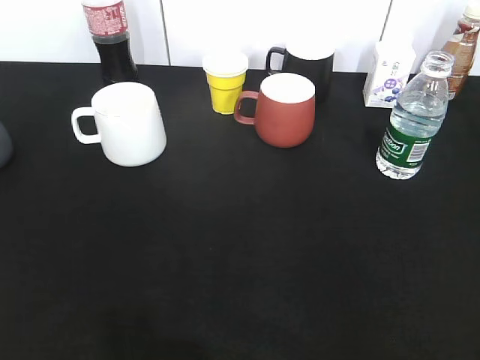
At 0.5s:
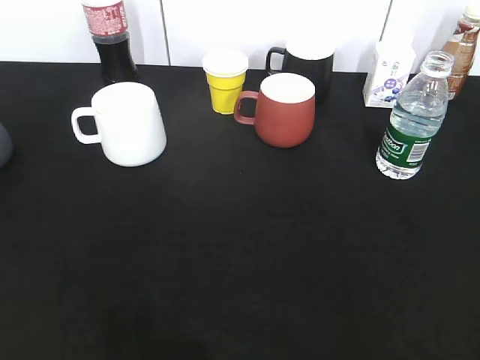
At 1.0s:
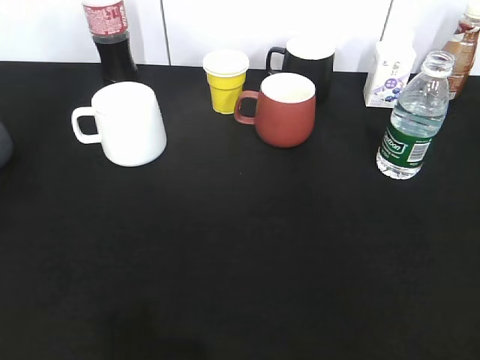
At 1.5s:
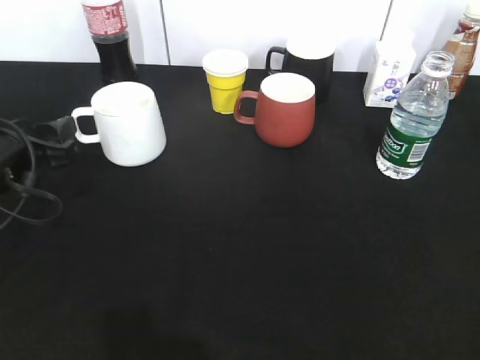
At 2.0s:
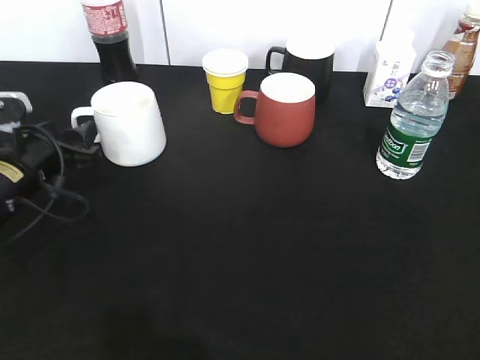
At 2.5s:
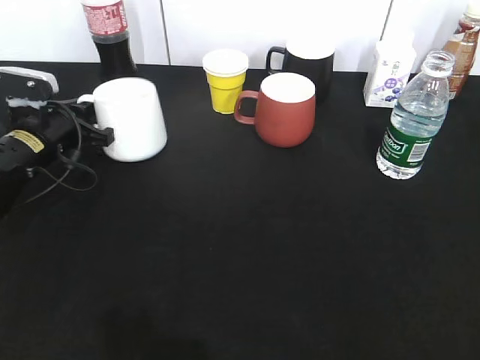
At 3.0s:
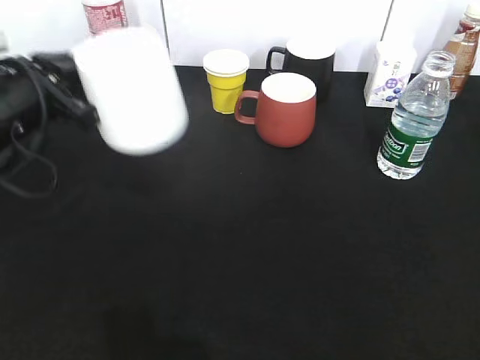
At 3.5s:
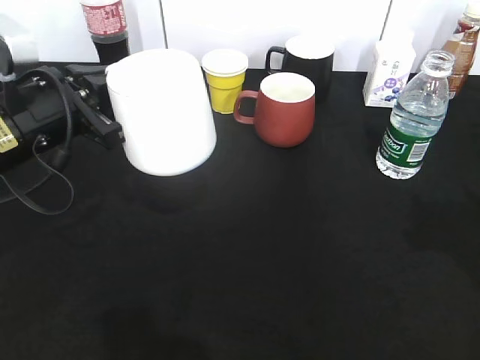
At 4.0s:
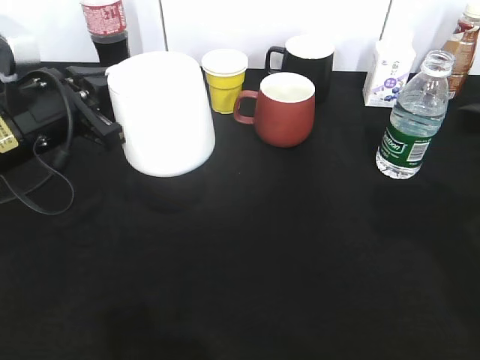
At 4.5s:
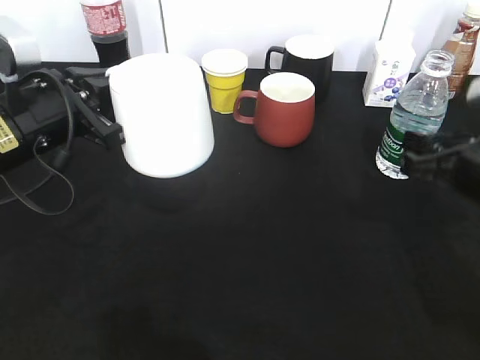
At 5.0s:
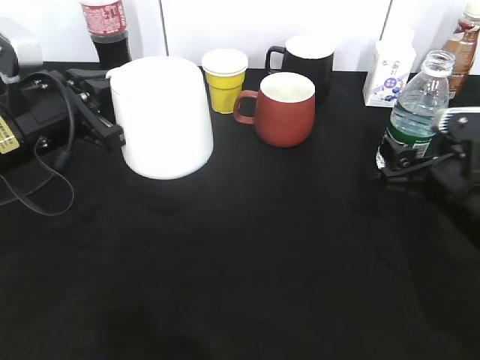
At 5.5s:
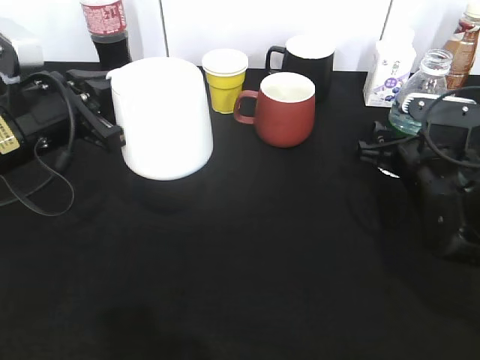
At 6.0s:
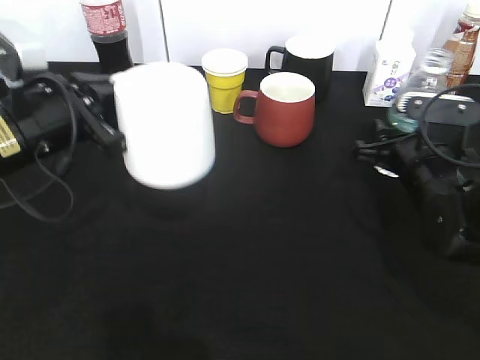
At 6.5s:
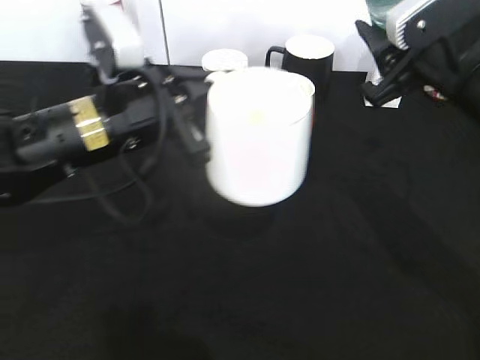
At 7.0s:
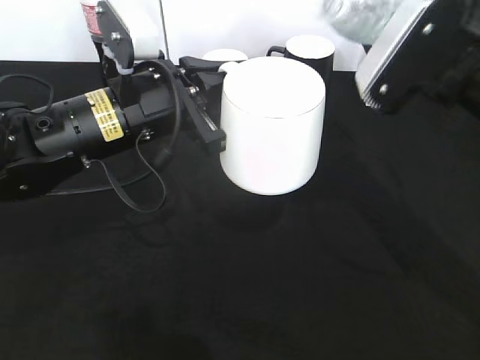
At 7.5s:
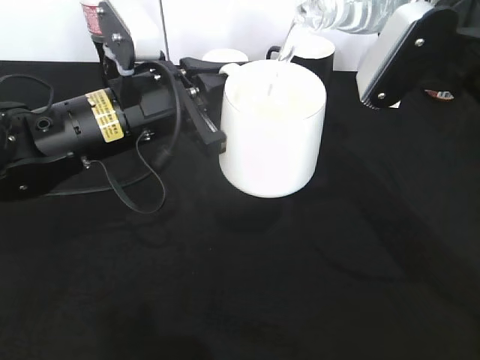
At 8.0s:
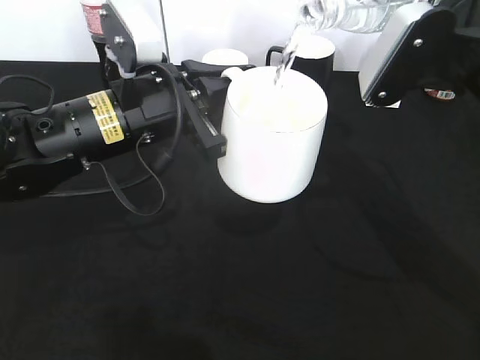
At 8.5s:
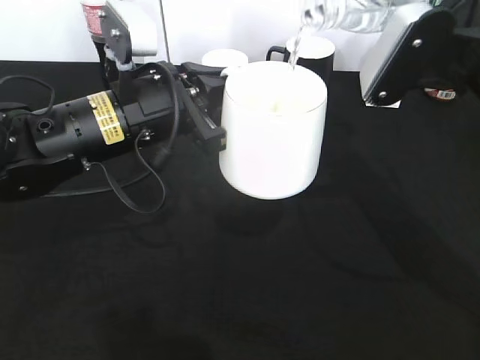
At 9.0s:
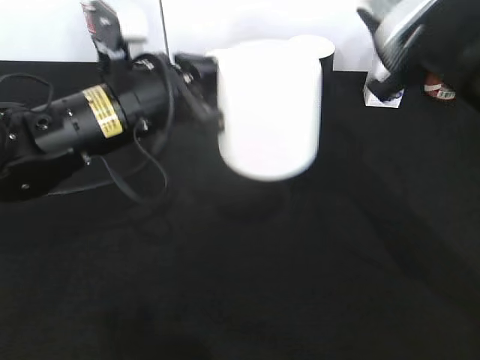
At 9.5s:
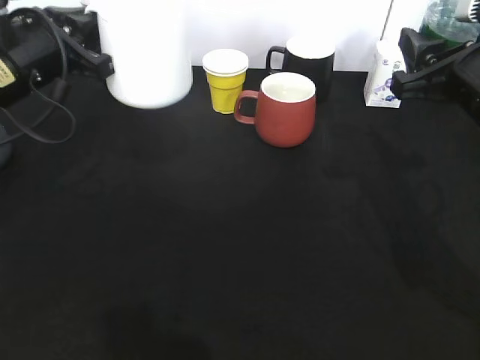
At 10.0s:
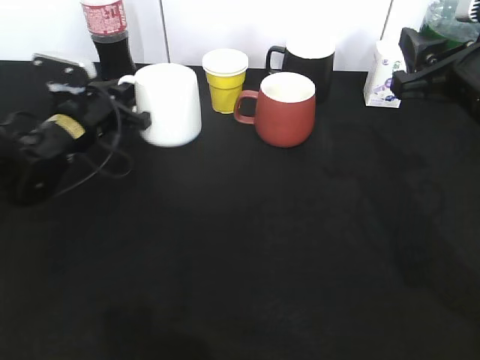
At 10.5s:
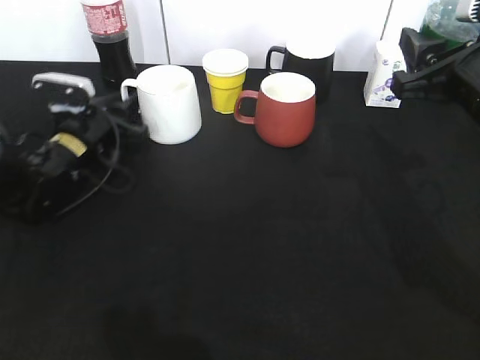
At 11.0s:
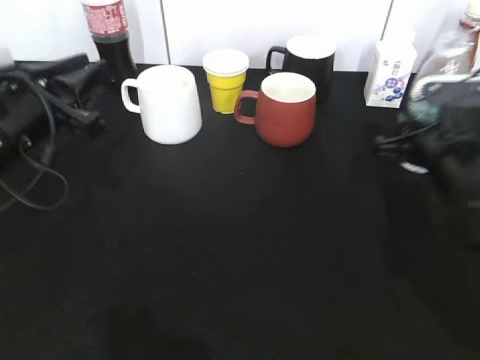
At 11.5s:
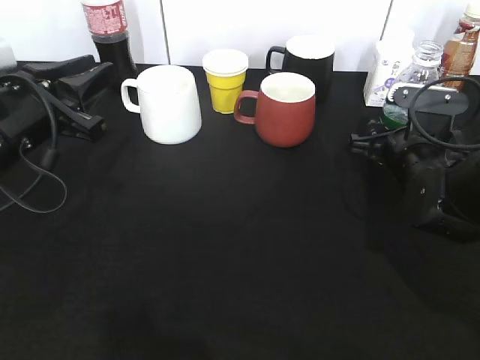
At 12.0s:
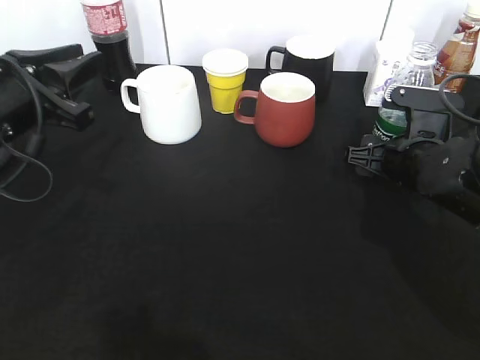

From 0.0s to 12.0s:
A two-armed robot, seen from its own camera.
Step, from 0.0s to 2.0s: Grasp the white cup with left gripper.
Step, from 3.5s to 5.5s: Grasp the bottle with water with right gripper.
Step, from 6.0s to 9.0s: Pour the water from bottle to cup with right gripper.
Step, from 9.5s to 10.5s: Place the white cup on the table with left gripper.
From 0.0s to 2.0s: The left gripper moves forward and downward, approximately 35 cm, and opens.
From 2.0s to 4.0s: The left gripper is displaced upward by some 5 cm, and closes, while the right gripper heads forward, covering roughly 20 cm.
From 4.0s to 6.0s: The right gripper heads downward and forward, covering about 20 cm, and closes.
From 6.0s to 8.0s: The right gripper heads upward, covering roughly 15 cm; the left gripper is displaced to the right by some 10 cm.
From 8.0s to 10.0s: The left gripper moves forward, to the left and downward, approximately 20 cm.
From 10.0s to 12.0s: The right gripper travels downward and forward by roughly 15 cm, and opens, while the left gripper moves backward and upward, roughly 15 cm, and opens up.

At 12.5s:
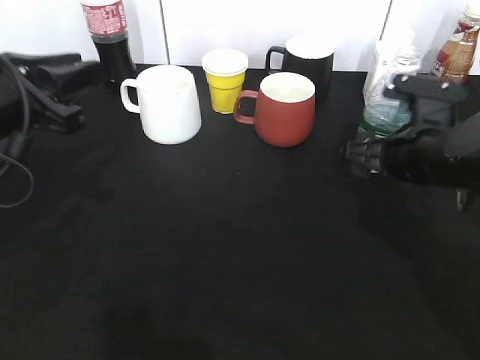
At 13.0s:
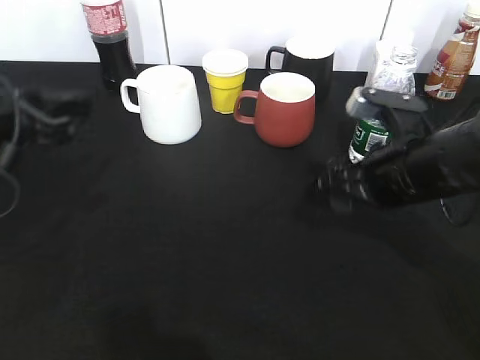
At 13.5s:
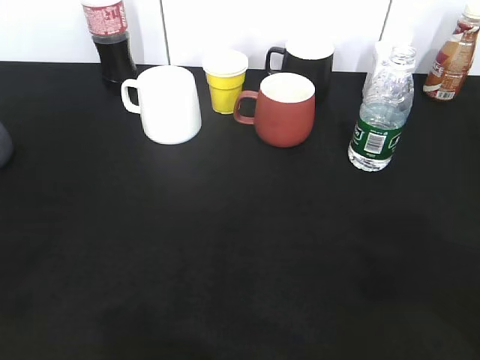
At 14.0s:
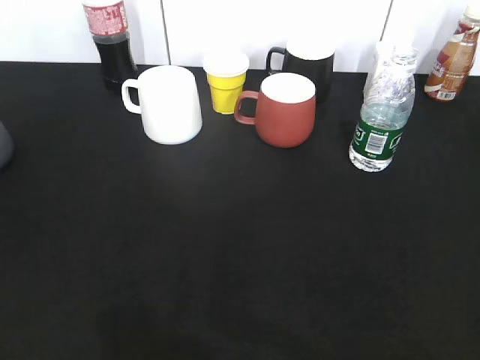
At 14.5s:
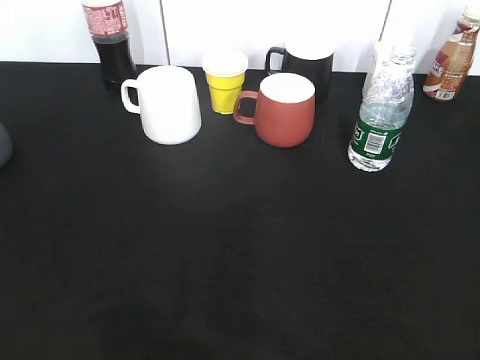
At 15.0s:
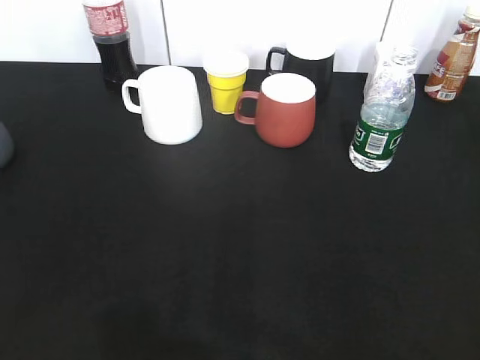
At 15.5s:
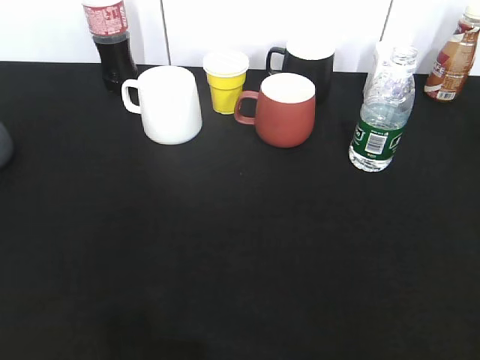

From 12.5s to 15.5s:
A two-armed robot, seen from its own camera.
From 12.5s to 14.0s: The right gripper heads backward, upward and to the right, covering some 35 cm. Meanwhile the left gripper heads backward and to the left, covering approximately 25 cm.

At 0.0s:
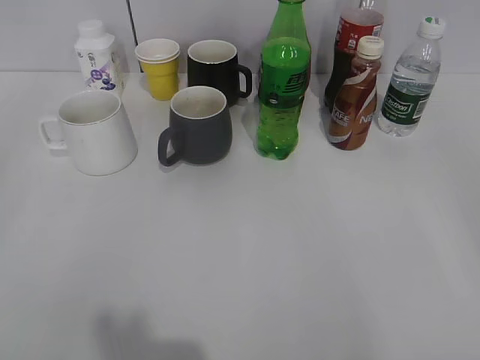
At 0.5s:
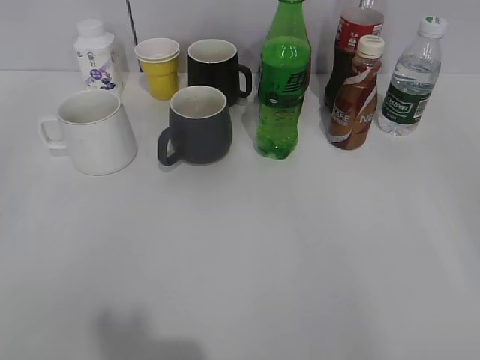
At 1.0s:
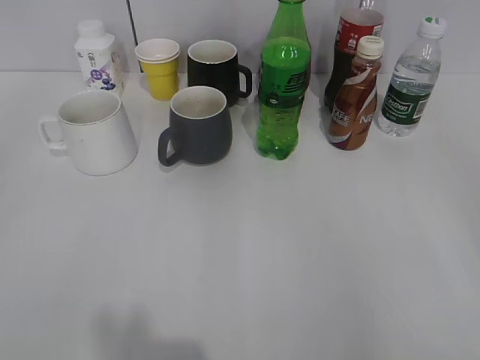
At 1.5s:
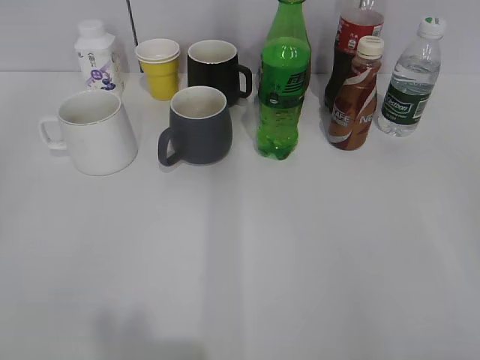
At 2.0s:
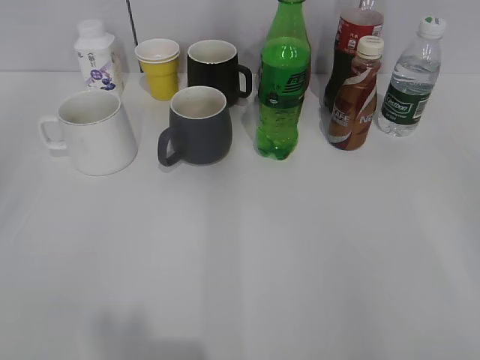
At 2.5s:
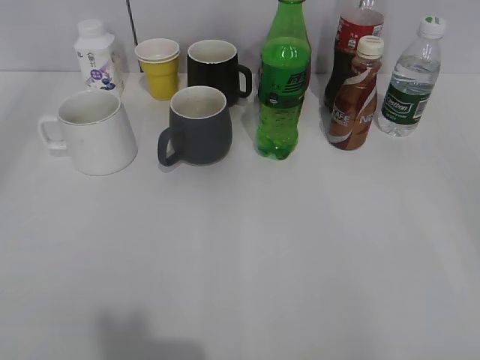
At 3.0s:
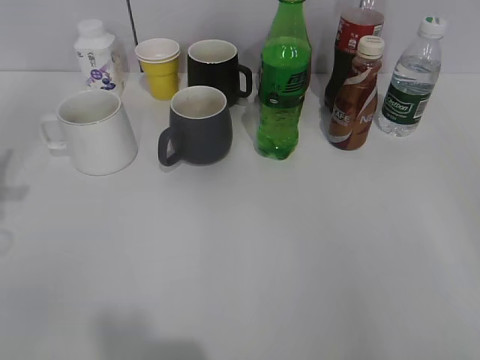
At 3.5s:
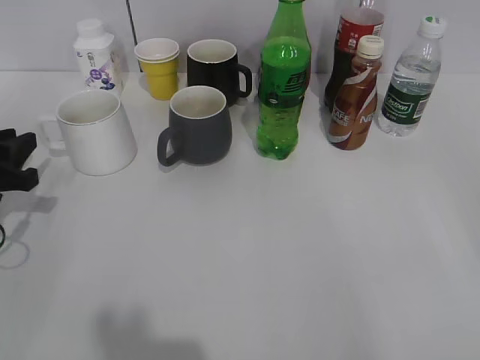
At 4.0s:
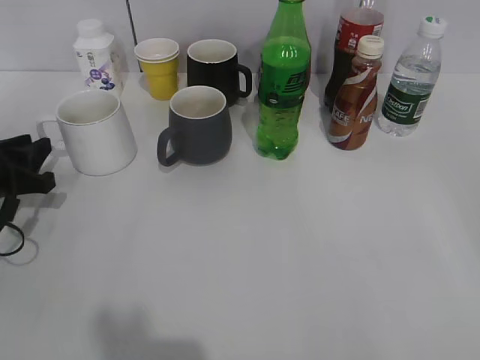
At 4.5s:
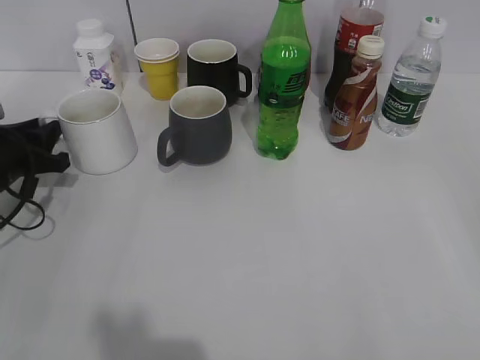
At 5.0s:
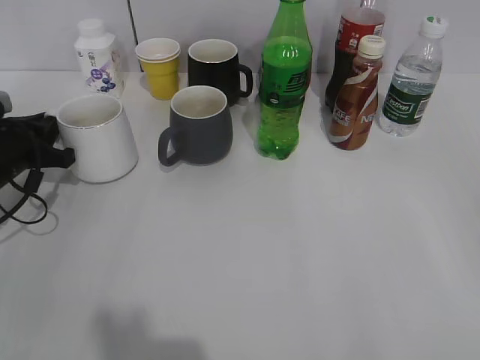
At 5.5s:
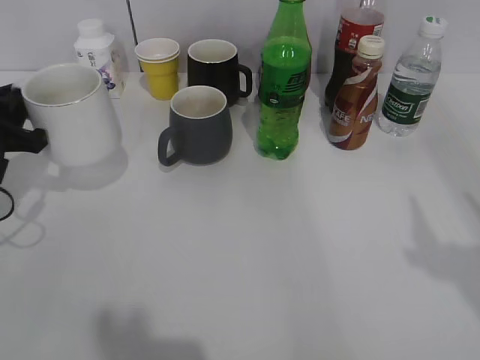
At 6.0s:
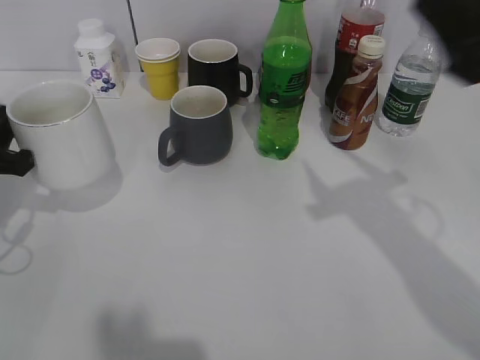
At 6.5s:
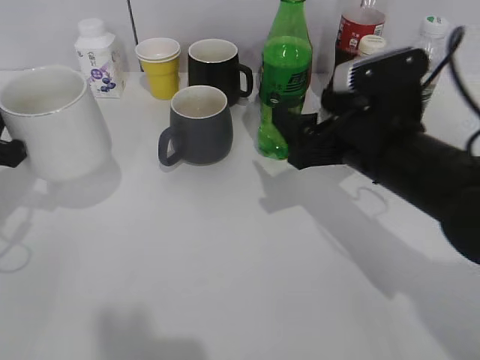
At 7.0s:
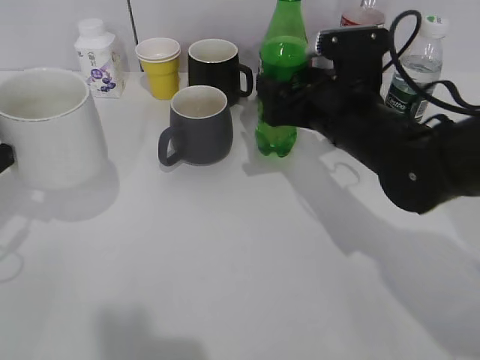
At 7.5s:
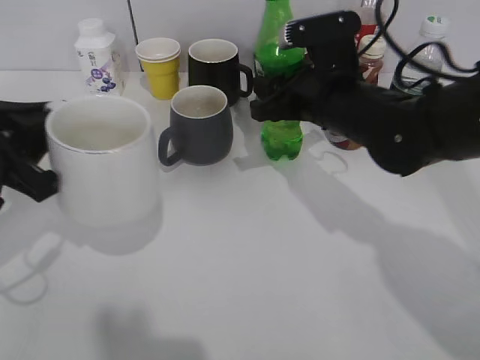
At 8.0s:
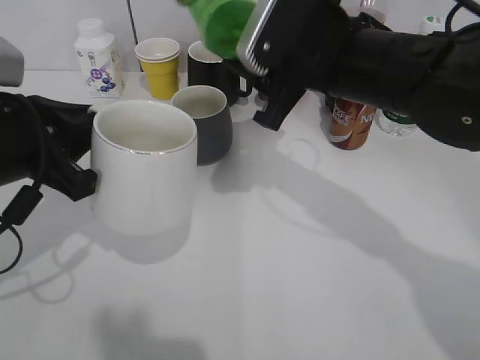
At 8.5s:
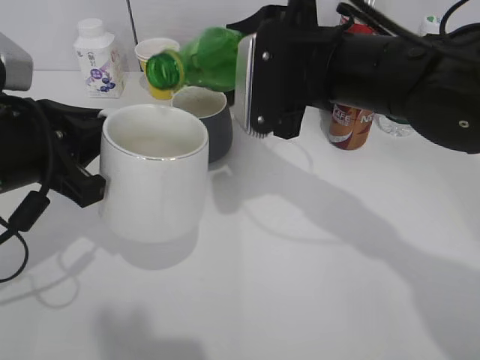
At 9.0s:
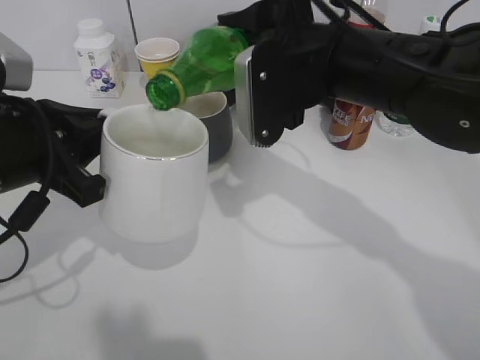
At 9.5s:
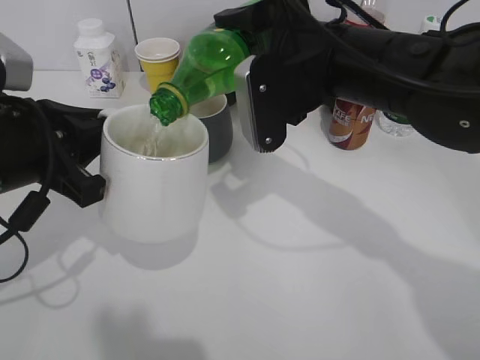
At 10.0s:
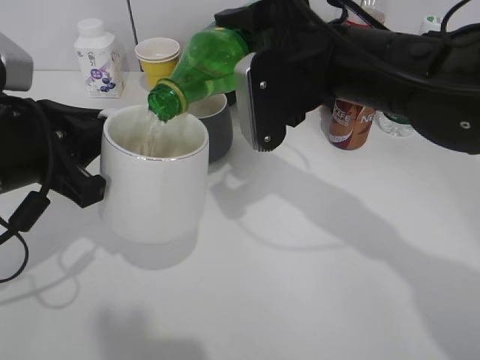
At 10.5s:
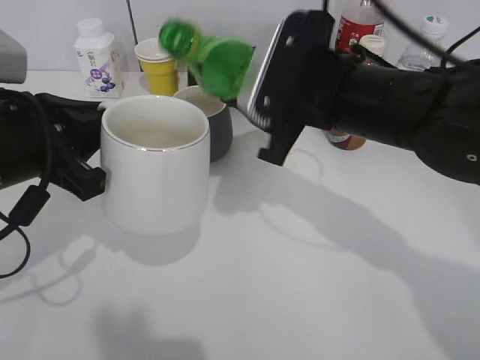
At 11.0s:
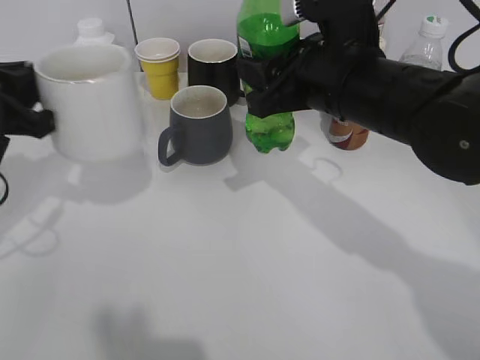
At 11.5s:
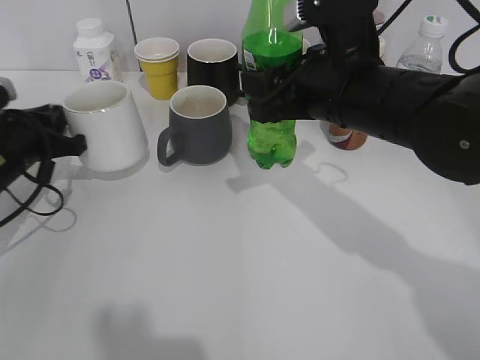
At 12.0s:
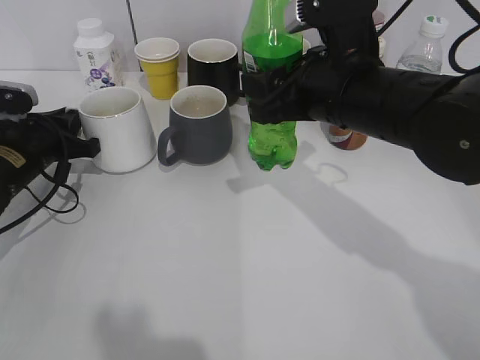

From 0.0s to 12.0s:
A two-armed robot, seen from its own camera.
Step, from 2.0s to 4.5s: Grasp the white cup with left gripper.
Step, from 5.0s to 5.5s: Lift the white cup with left gripper.
Step, from 6.0s to 7.0s: Grasp the bottle with sprite with right gripper.
Step, from 7.5s to 10.0s: Pour the sprite from bottle to cup with right gripper.
From 2.0s to 4.0s: The left gripper is displaced forward and downward by about 35 cm.
From 4.0s to 6.0s: The right gripper travels forward and to the left by roughly 20 cm. The left gripper shifts about 5 cm upward, and closes up.
From 6.0s to 8.0s: The left gripper goes approximately 10 cm to the right and upward. The right gripper goes roughly 20 cm to the left, forward and downward, and closes.
From 10.0s to 12.0s: The left gripper moves forward, downward and to the left, about 20 cm.
